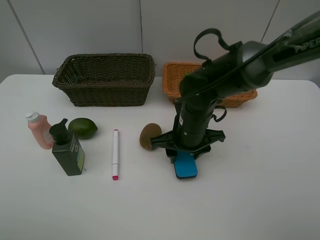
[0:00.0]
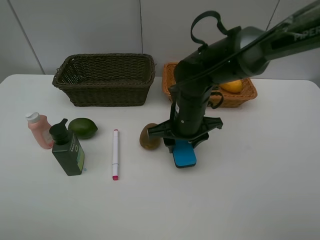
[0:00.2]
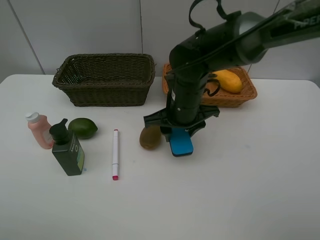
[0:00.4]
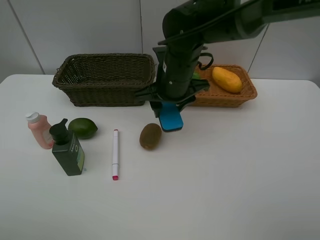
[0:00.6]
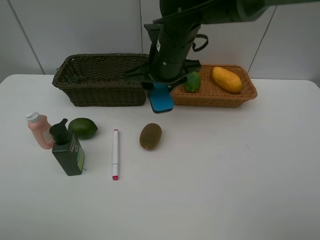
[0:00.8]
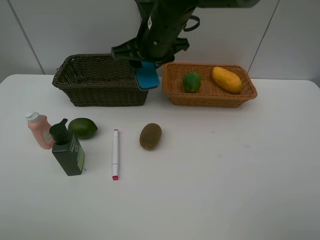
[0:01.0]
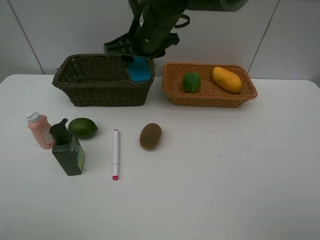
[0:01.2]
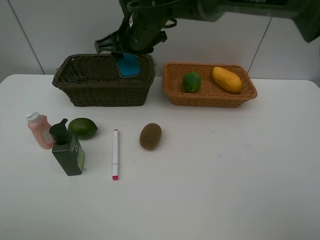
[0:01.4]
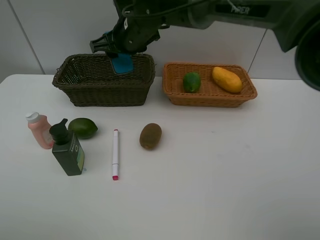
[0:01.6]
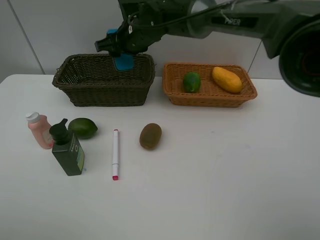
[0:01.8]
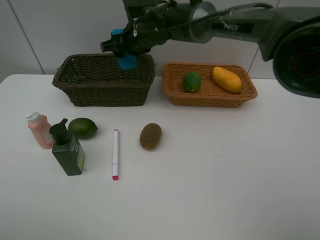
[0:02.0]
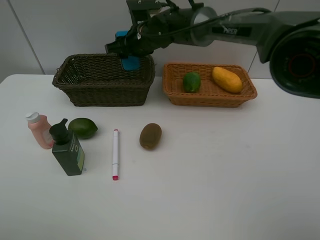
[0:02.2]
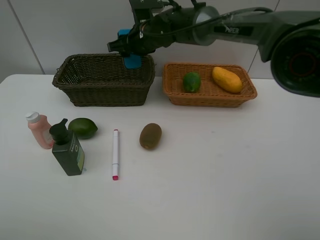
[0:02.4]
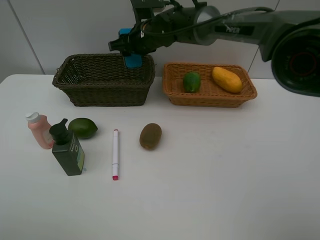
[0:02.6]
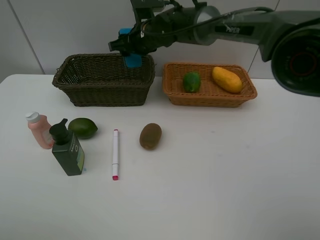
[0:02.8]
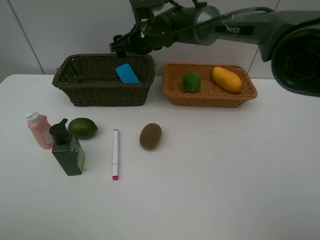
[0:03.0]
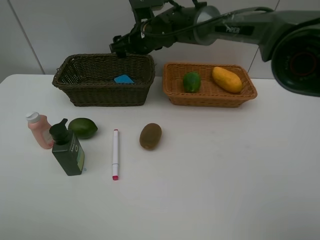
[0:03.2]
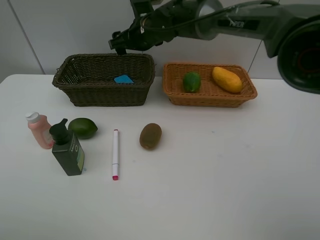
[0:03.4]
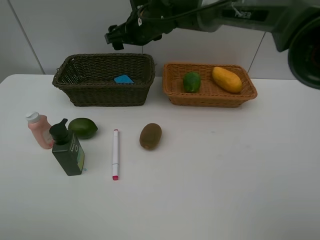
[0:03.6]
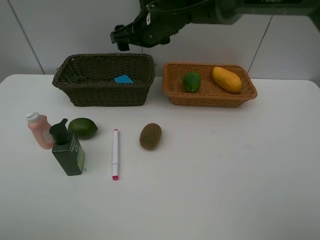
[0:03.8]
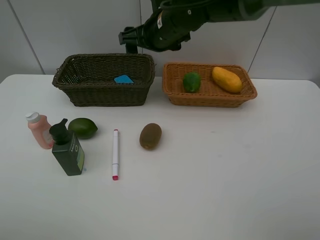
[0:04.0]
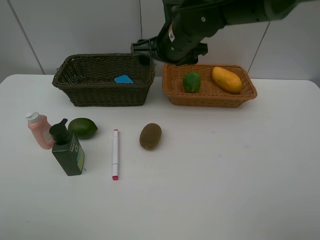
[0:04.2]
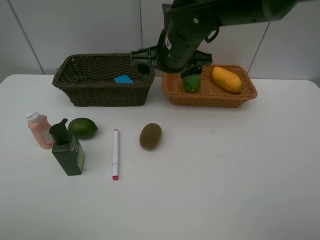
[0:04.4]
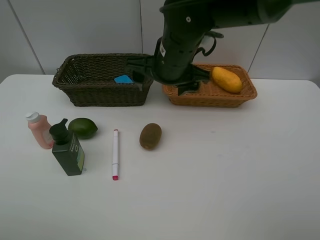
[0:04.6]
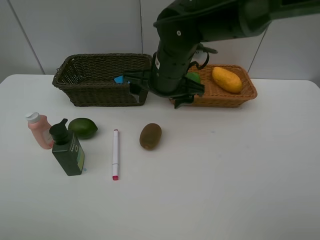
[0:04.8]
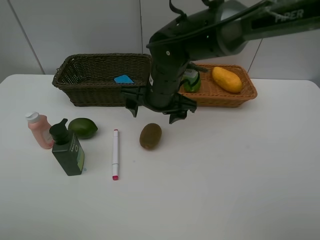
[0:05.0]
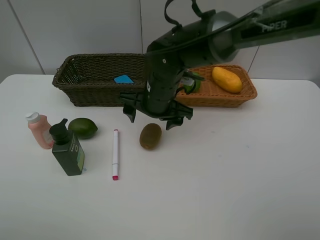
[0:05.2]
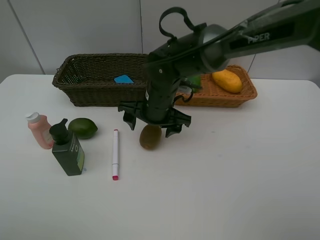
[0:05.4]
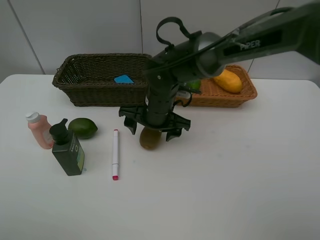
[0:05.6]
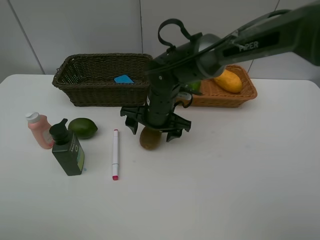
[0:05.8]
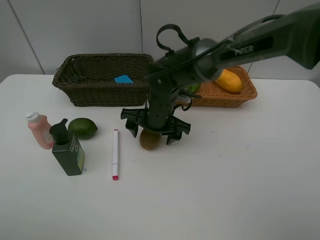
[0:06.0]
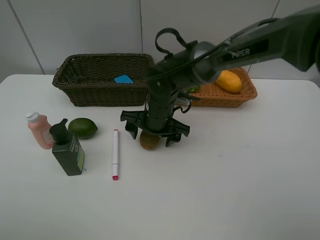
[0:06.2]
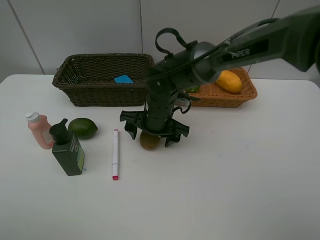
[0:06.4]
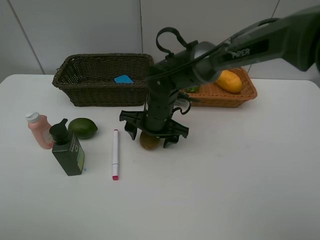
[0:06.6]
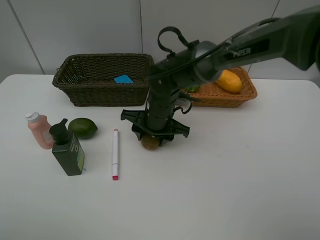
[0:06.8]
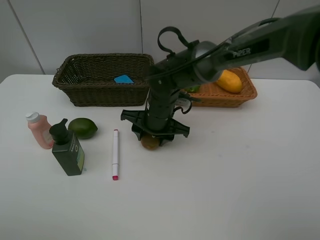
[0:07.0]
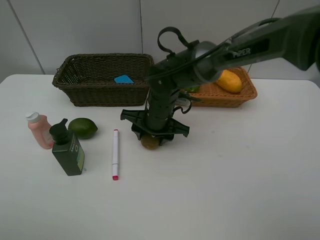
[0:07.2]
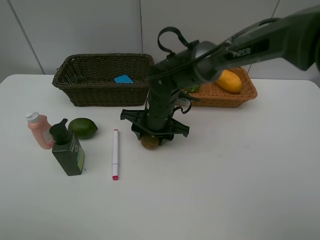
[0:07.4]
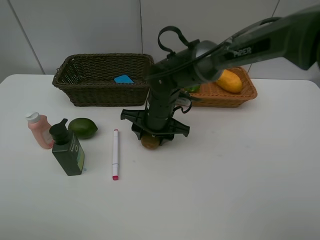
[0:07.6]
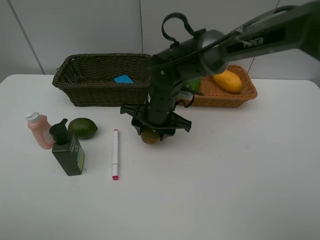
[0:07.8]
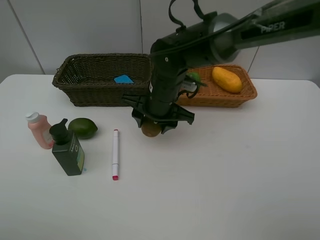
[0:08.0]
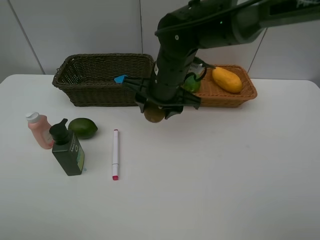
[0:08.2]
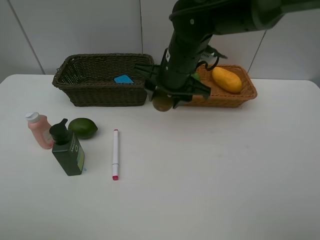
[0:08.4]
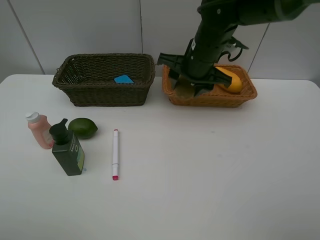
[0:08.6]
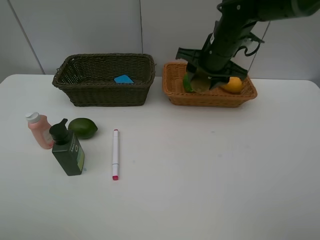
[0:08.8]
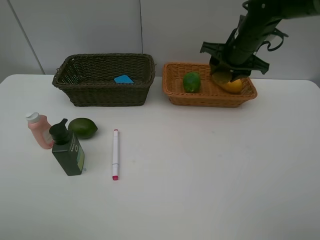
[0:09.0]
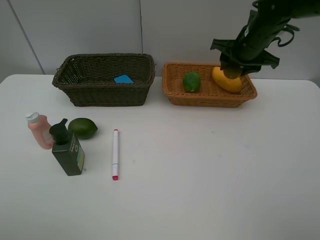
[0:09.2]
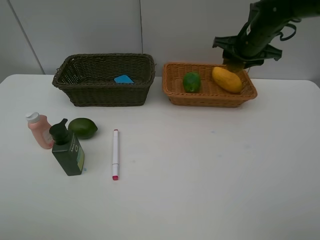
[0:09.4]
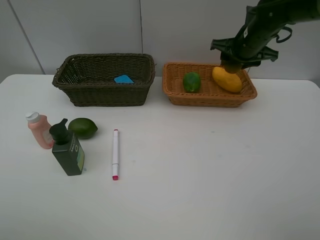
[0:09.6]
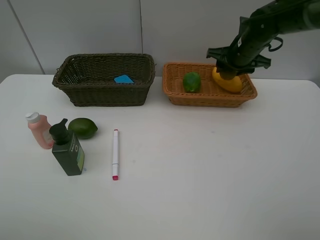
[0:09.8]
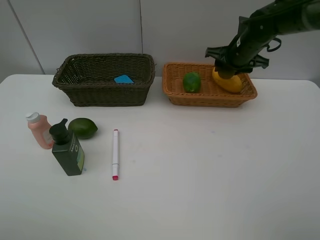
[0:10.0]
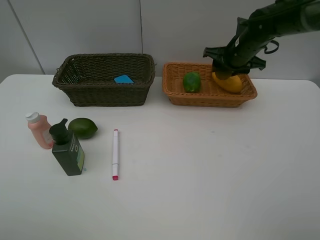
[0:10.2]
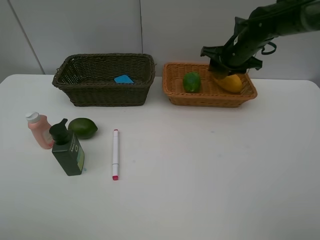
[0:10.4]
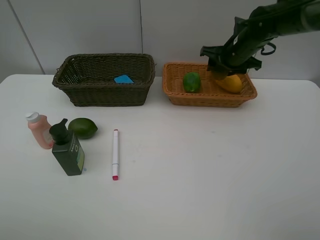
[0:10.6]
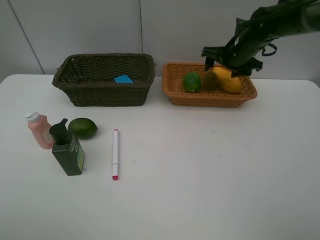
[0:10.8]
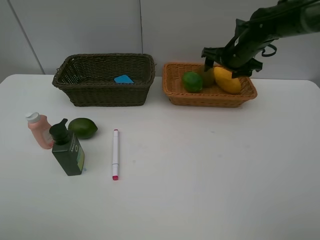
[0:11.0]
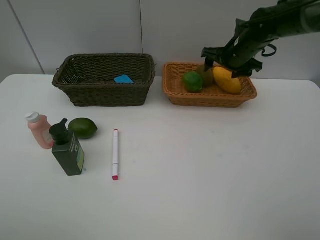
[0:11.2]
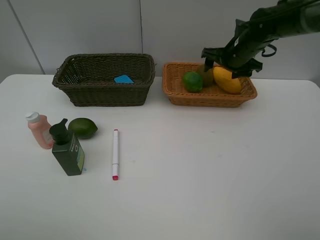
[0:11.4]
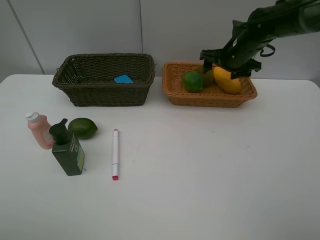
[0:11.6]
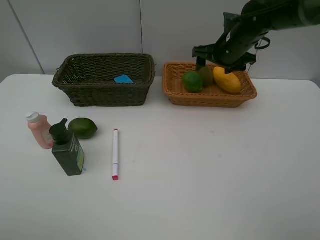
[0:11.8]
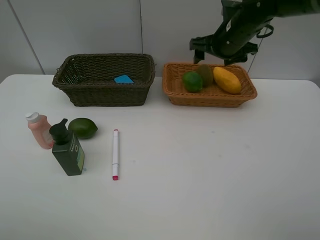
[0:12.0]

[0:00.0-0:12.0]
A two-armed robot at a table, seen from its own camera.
Task of the whole recording: Place multiple objects separately in different baskets.
Step, 0:00.4 to 0:03.2: Place the blackboard eraser in the dark basket with right gripper.
Step, 0:03.4 to 0:07.8: Pick up kiwi with right gripper.
Step, 0:08.0 to 0:11.2: Place the kiwi in the light basket with right gripper.
0:00.0 to 0:01.6: The right gripper is displaced forward, upward and to the left by about 20 cm.
0:01.6 to 0:03.0: The right gripper changes place by roughly 5 cm, and opens.
0:03.0 to 0:04.4: The right gripper goes roughly 15 cm backward.
0:04.4 to 0:06.0: The right gripper heads downward, covering some 15 cm.
0:06.0 to 0:07.6: The right gripper closes its fingers.
0:07.6 to 0:09.0: The right gripper shifts about 25 cm to the right, upward and forward.
0:09.0 to 0:10.4: The grippers move only a little.
0:10.4 to 0:12.0: The right gripper moves approximately 5 cm, and opens its fingers.

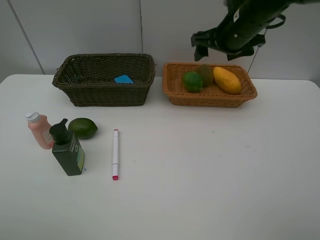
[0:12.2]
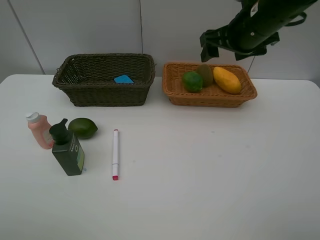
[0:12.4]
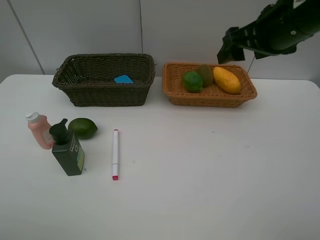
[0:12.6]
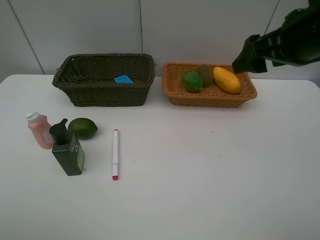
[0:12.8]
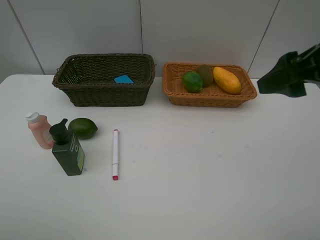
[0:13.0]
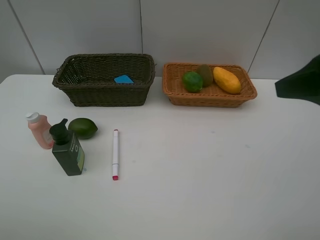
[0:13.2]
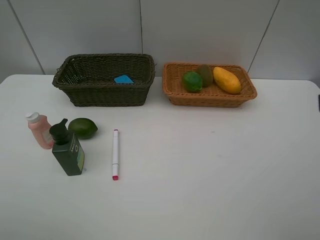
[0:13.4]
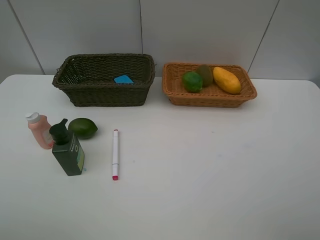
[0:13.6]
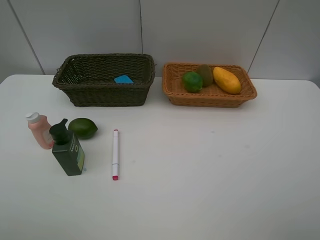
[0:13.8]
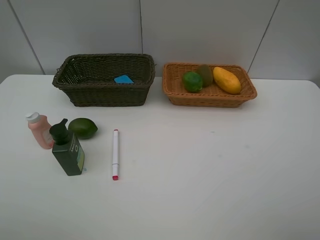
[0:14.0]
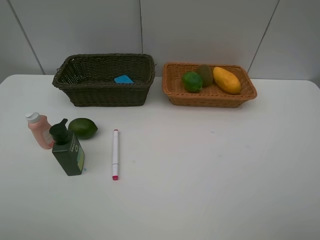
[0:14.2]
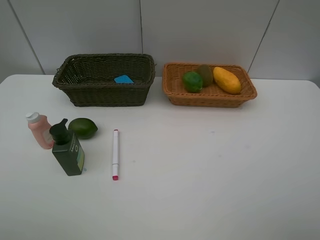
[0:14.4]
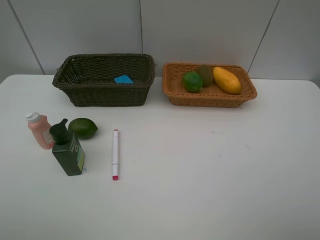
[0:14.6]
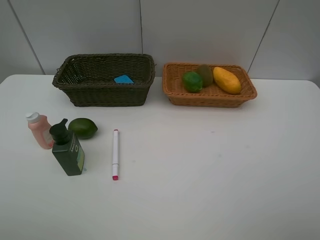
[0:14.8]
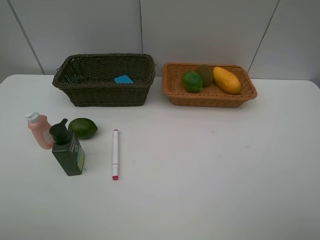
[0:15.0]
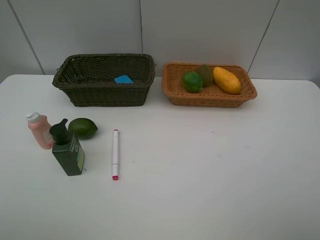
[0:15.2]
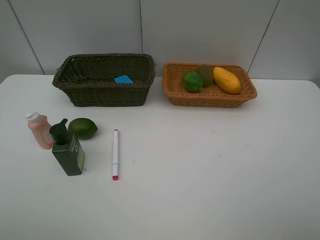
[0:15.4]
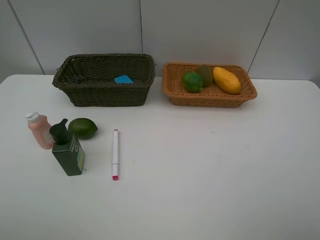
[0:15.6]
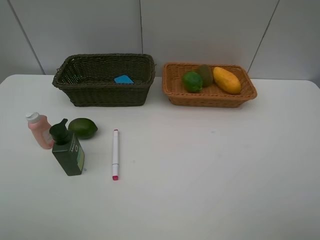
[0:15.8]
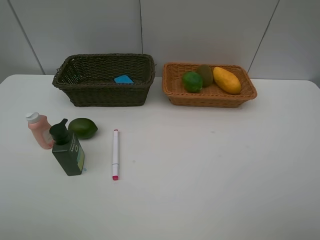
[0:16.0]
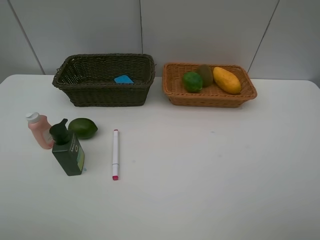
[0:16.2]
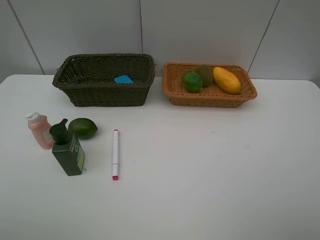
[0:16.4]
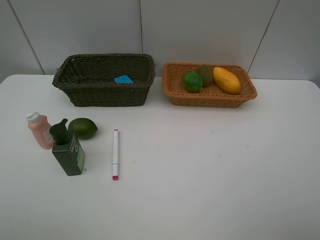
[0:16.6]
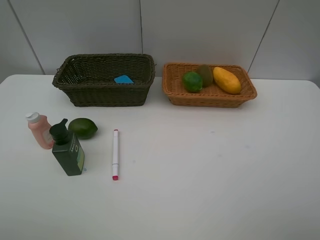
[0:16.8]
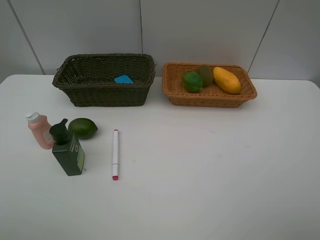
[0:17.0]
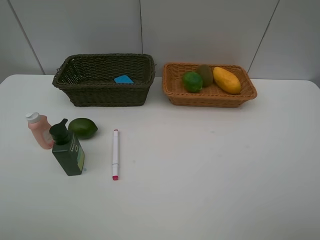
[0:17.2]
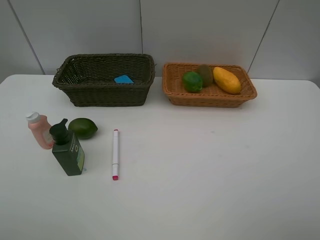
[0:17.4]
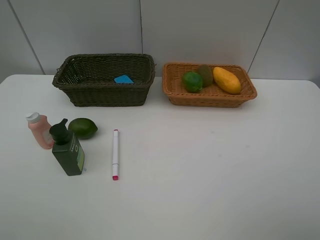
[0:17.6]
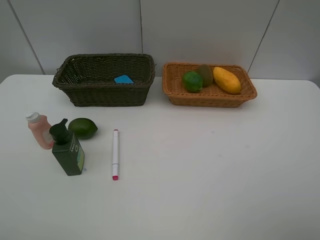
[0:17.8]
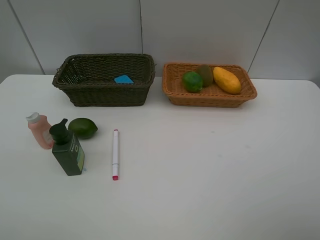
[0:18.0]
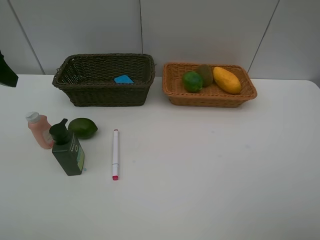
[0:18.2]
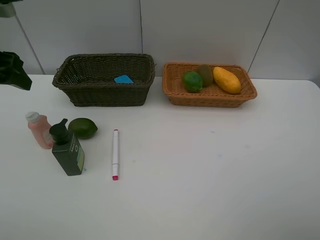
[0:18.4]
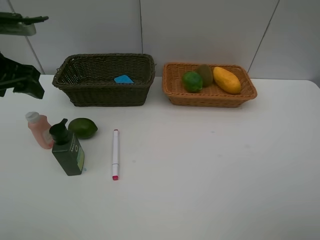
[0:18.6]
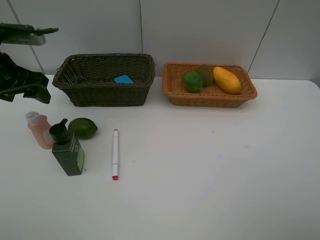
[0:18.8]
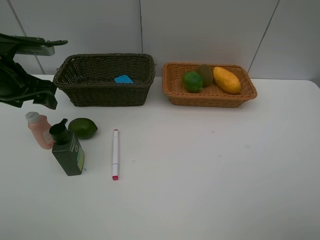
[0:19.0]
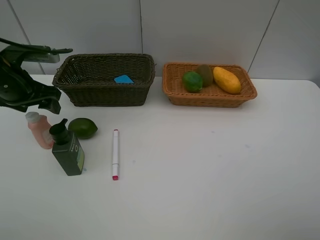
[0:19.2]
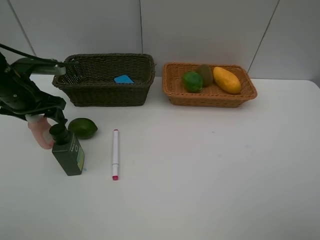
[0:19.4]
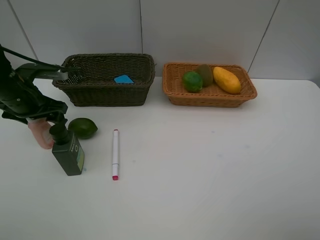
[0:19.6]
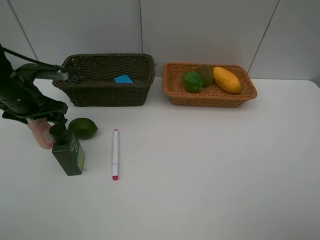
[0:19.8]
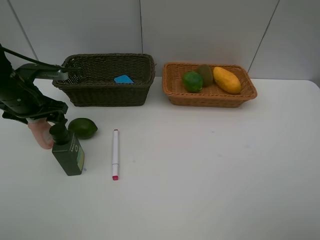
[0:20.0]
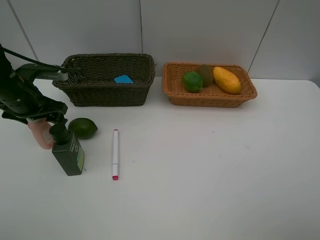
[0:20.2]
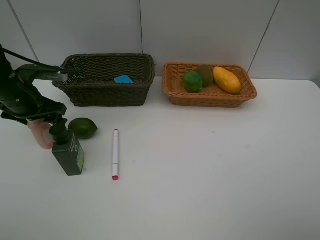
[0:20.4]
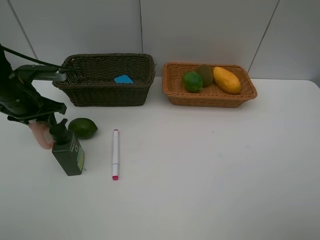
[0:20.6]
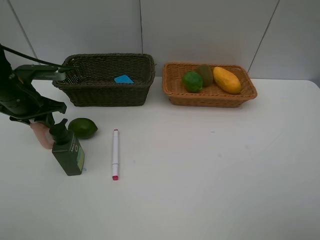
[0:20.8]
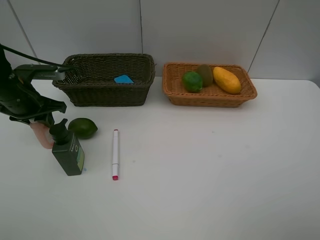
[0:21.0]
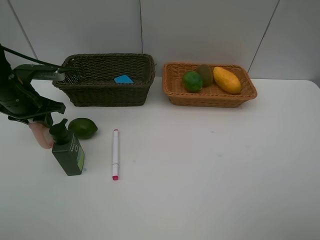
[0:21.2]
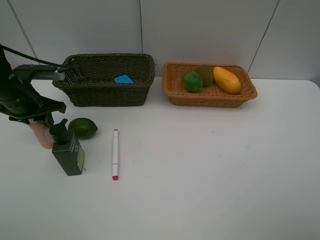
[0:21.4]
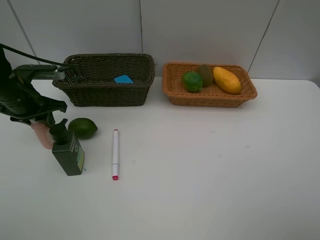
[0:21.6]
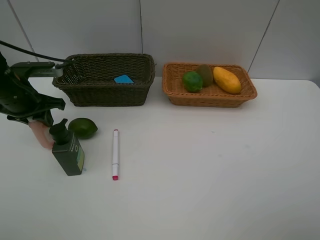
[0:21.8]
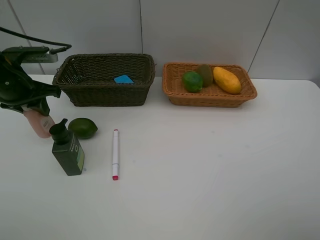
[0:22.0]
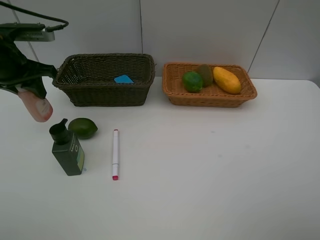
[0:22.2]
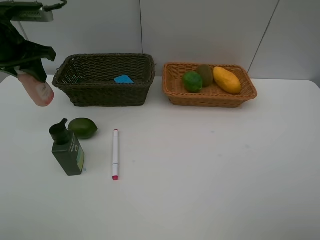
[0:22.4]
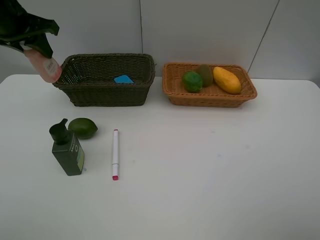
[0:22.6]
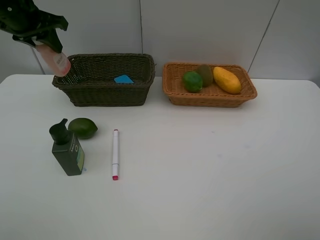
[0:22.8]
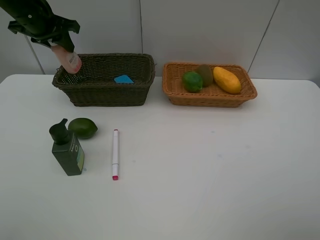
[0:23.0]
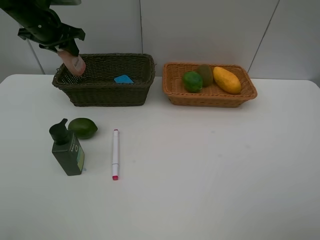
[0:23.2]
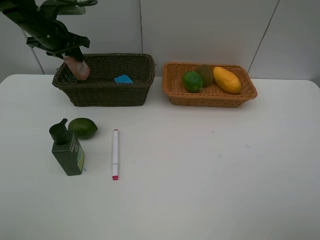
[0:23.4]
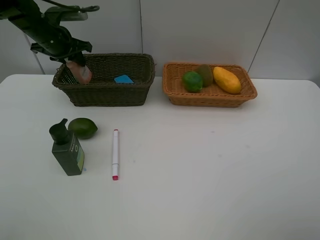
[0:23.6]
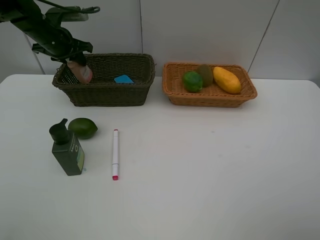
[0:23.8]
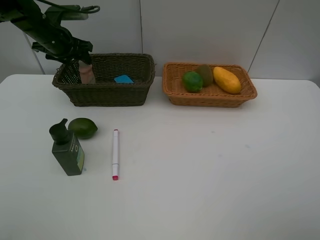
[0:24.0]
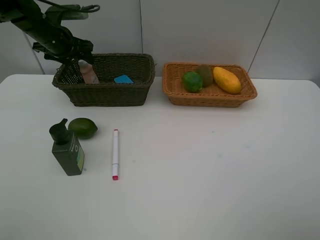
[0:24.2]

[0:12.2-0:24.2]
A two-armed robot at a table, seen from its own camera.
Task of the whole recording: Place multiple objects separately in different baskets.
Step, 0:12.2 to 0:22.0: Pick up the laundry detergent with left gripper.
0:12.2 to 0:13.8: The right gripper moves backward, about 35 cm.
0:15.2 to 0:16.6: Both grippers stay about where they are.
0:18.2 to 0:19.8: The left gripper is displaced downward and forward by approximately 20 cm.
0:19.8 to 0:21.2: The left gripper closes.
0:21.2 to 0:22.6: The left gripper heads upward, covering some 15 cm.
0:22.6 to 0:24.2: The left gripper heads forward and downward, covering about 15 cm, and opens up.
